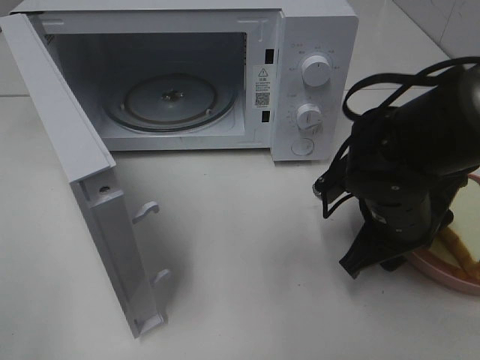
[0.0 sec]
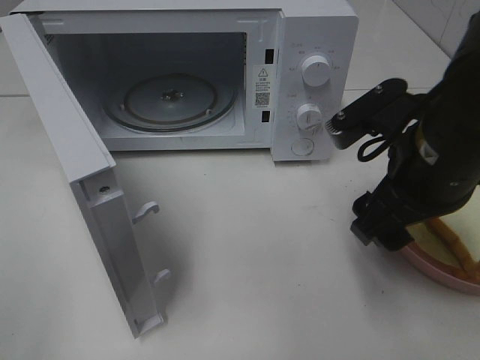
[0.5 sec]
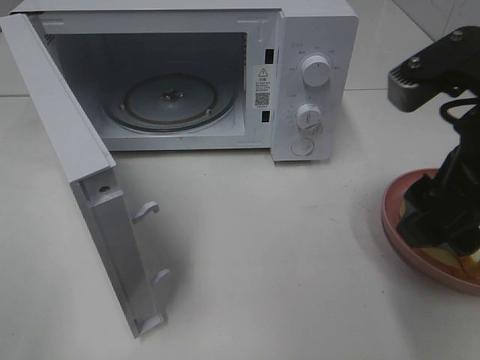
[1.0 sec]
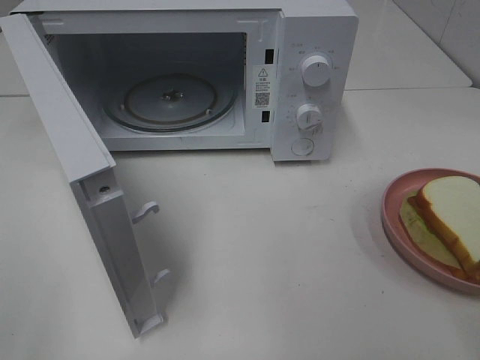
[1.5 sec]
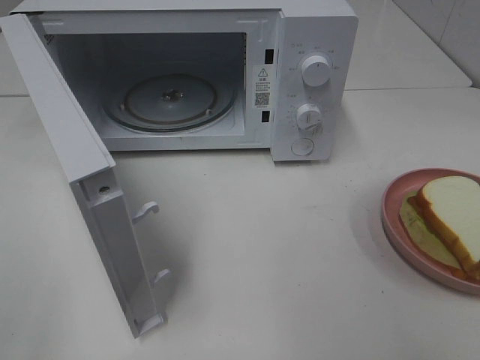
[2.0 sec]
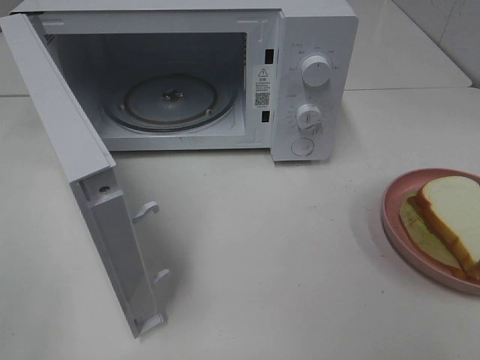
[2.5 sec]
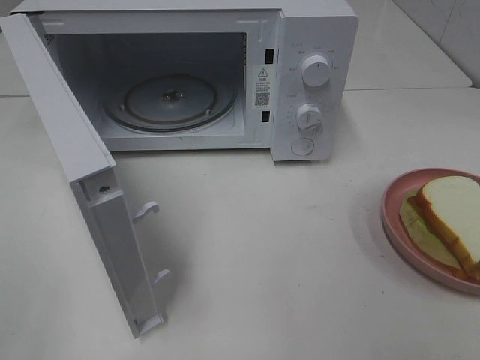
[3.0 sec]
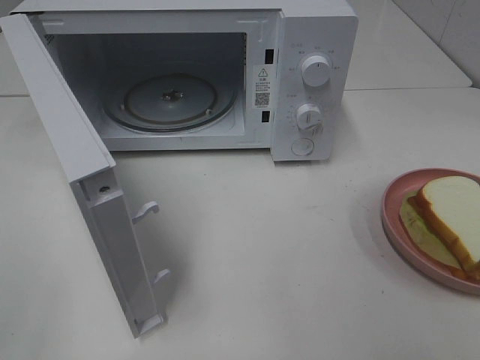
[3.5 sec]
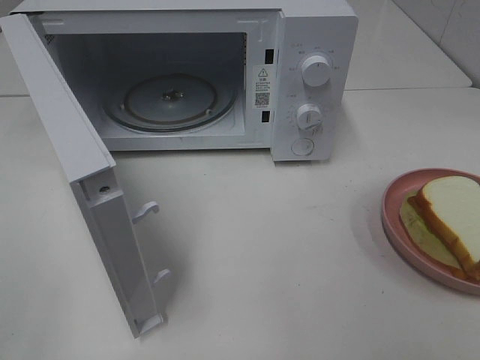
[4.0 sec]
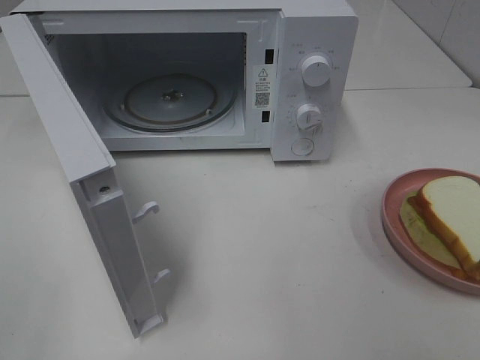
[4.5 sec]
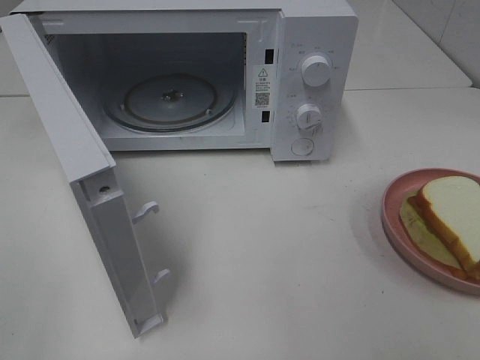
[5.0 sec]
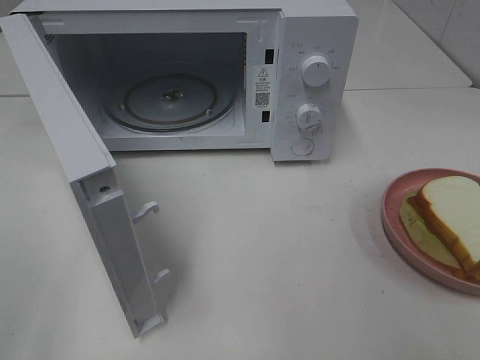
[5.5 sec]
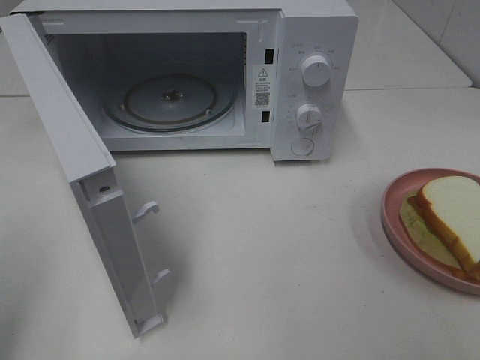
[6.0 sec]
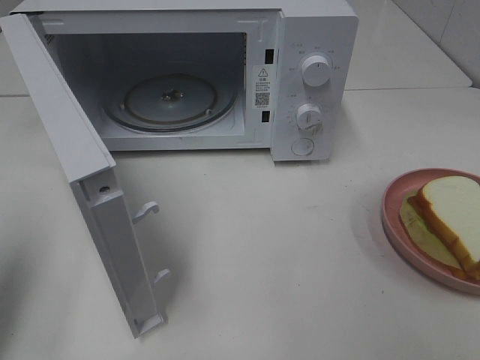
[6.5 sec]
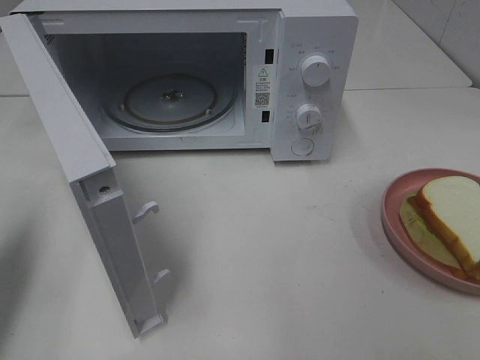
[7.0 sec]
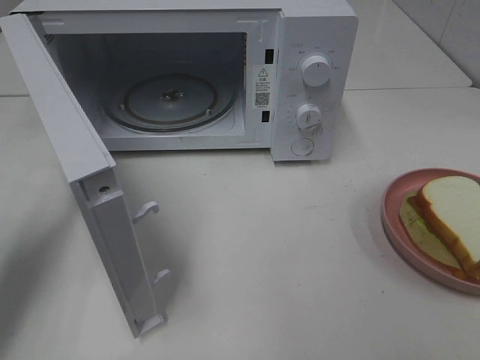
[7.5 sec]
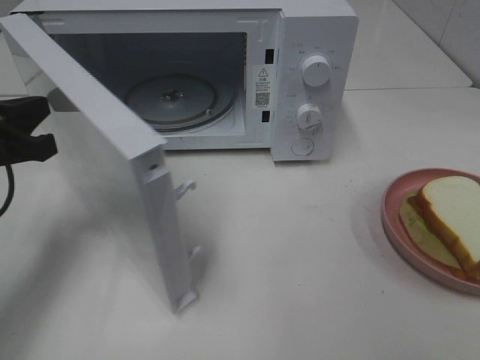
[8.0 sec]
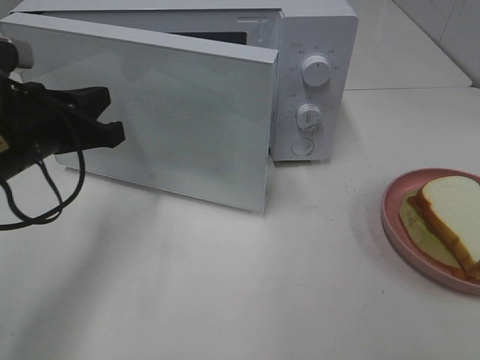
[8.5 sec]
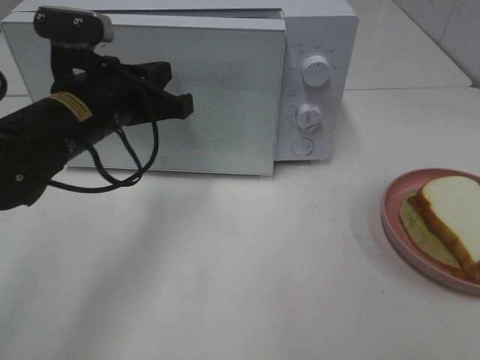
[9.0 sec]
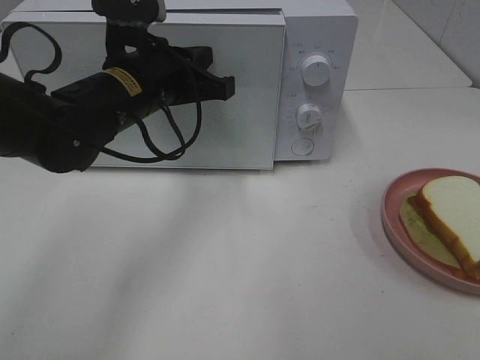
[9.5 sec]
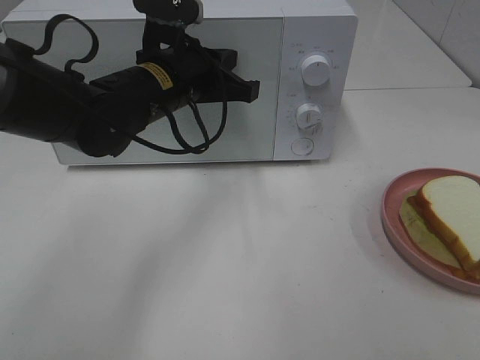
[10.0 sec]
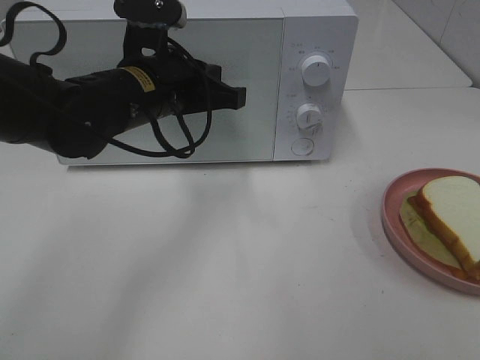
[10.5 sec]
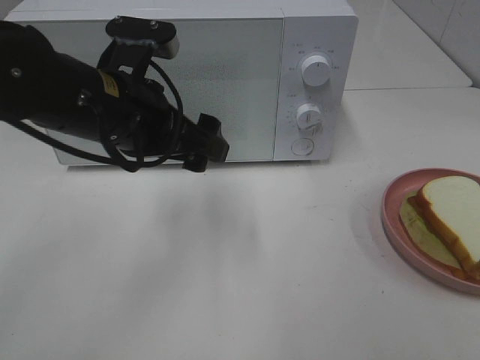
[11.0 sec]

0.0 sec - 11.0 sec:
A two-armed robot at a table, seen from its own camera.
Task of the whole recording: Heat Sandwich.
Step, 1.5 sec - 10.5 sec: Left hand: close the microwave door.
0.0 sec - 2.0 sec: The right gripper moves backward, upward and to the right, approximately 30 cm.
5.5 sec - 7.5 sec: The left gripper heads forward and downward, covering roughly 25 cm, and closes its fingers.
7.5 sec - 9.0 sec: The left gripper heads to the right and forward, covering some 20 cm.
9.0 sec - 11.0 sec: The left gripper opens up.

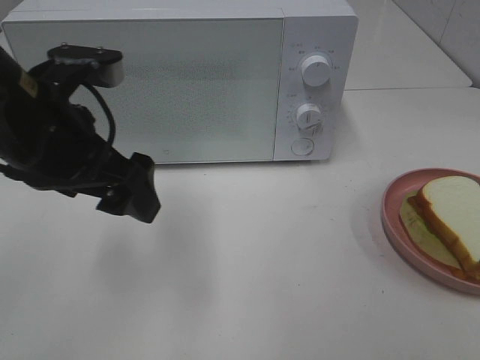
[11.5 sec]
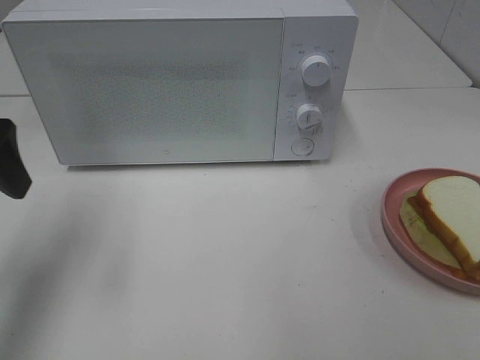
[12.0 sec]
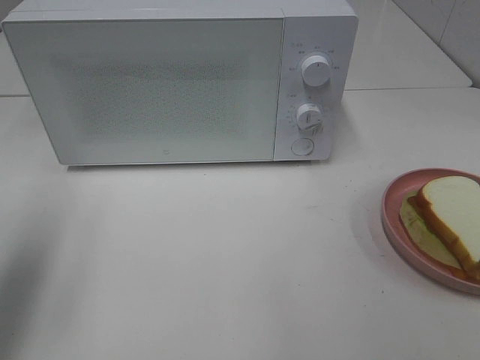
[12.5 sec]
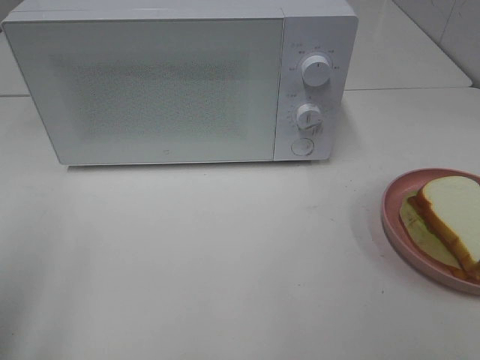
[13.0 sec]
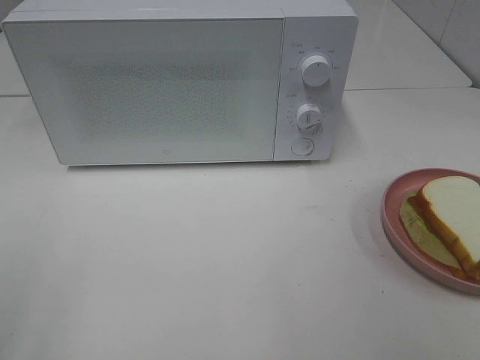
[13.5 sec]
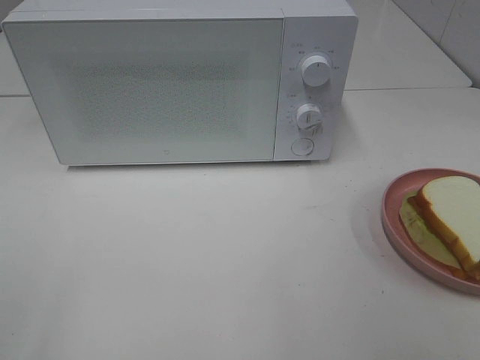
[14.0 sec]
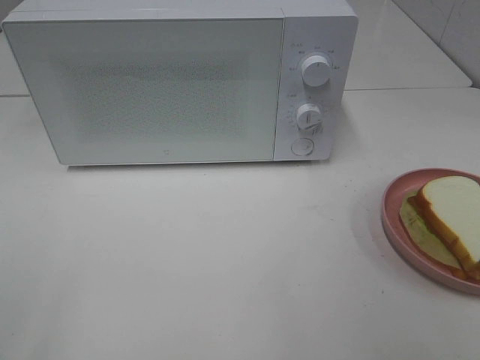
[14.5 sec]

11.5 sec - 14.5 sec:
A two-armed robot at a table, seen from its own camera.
Task of the whole recording: Heat Sandwich.
11.5 sec - 13.0 sec: The left gripper is displaced to the left and backward by about 20 cm.

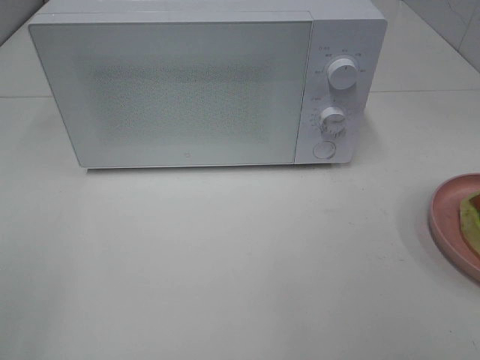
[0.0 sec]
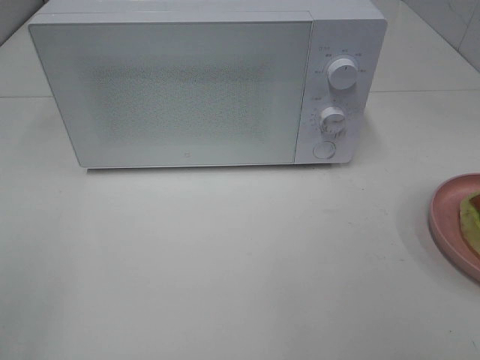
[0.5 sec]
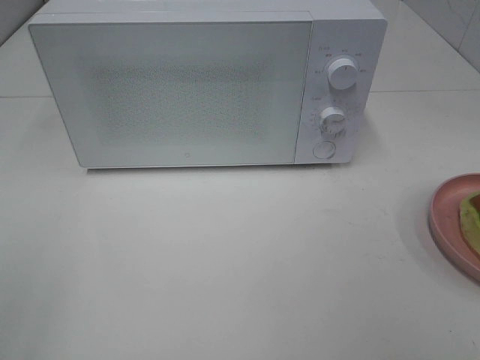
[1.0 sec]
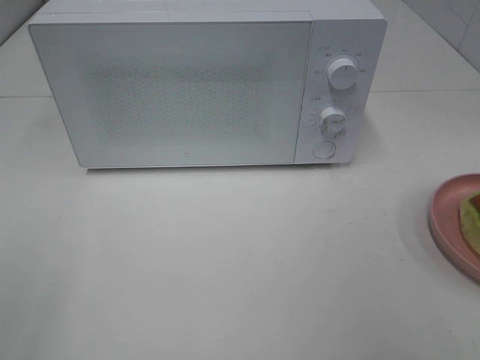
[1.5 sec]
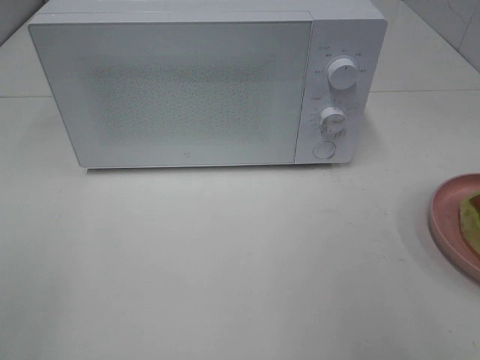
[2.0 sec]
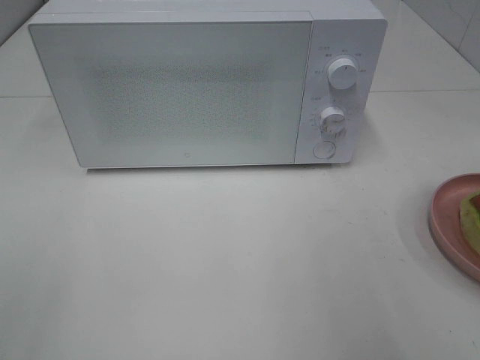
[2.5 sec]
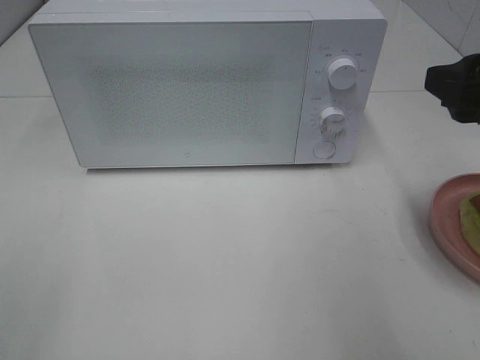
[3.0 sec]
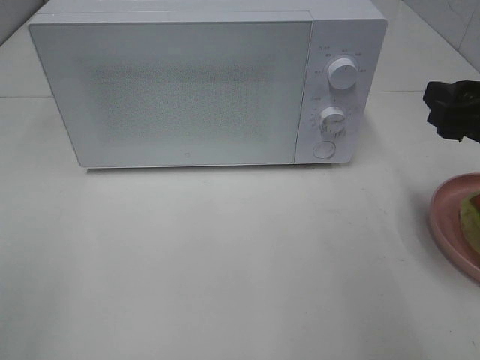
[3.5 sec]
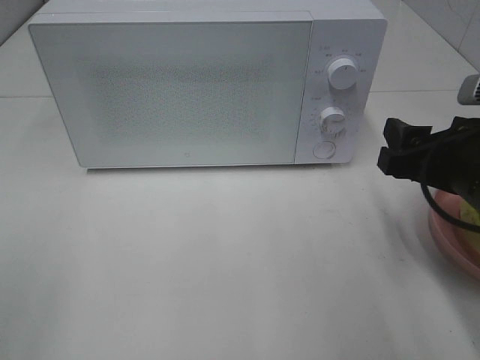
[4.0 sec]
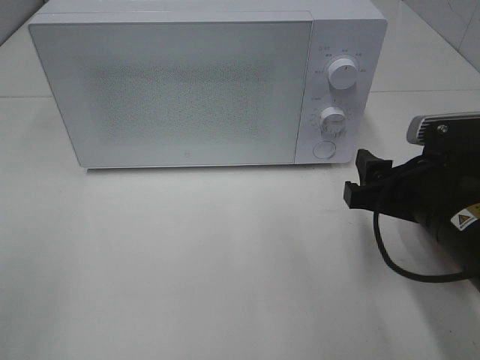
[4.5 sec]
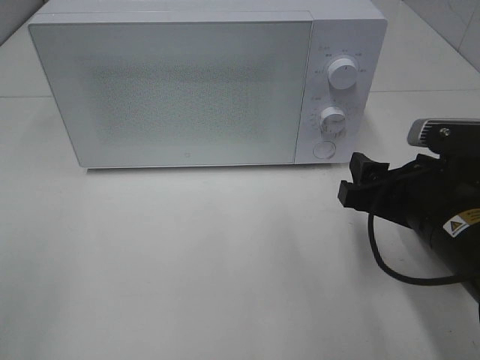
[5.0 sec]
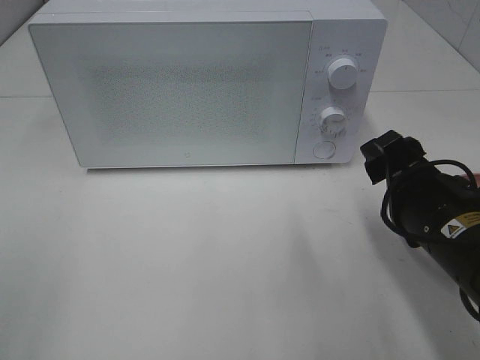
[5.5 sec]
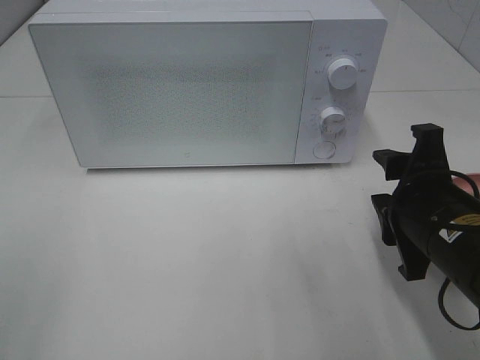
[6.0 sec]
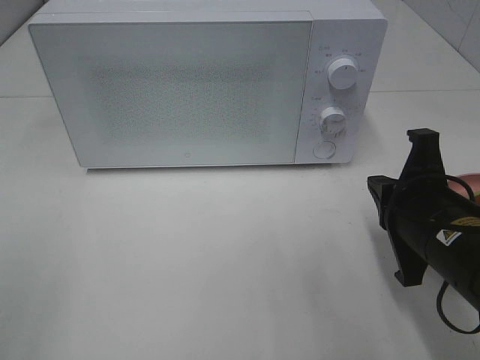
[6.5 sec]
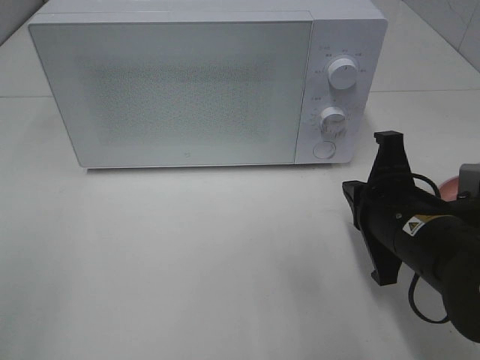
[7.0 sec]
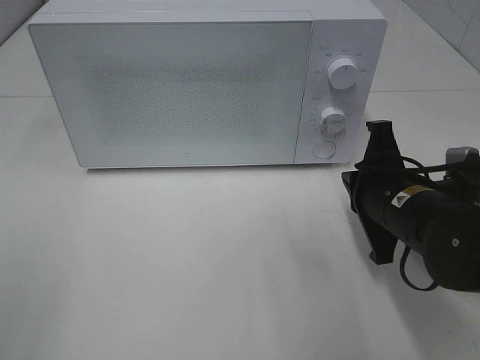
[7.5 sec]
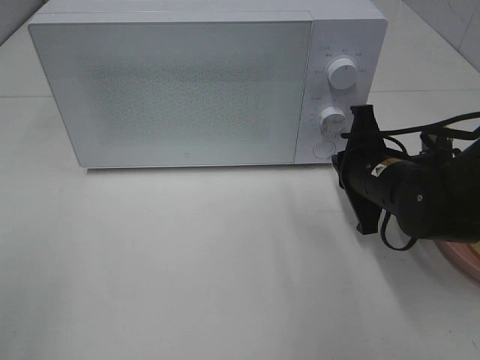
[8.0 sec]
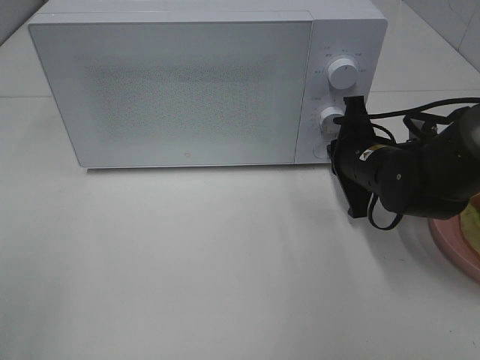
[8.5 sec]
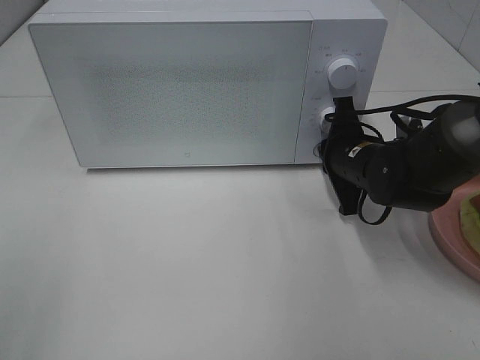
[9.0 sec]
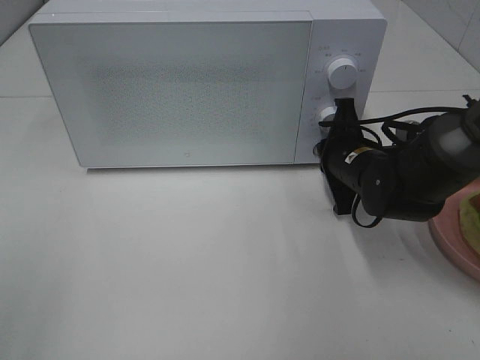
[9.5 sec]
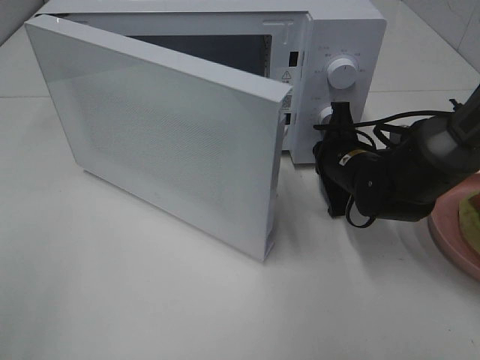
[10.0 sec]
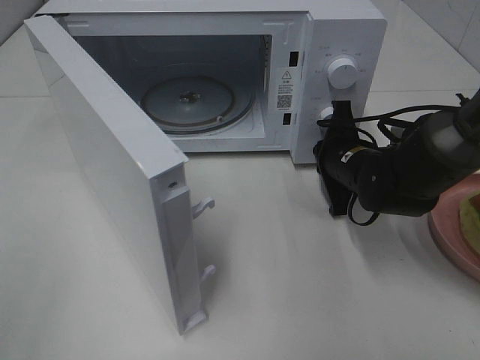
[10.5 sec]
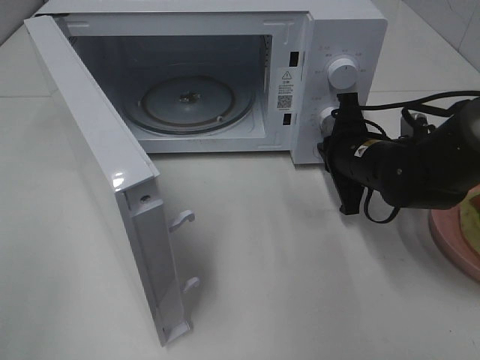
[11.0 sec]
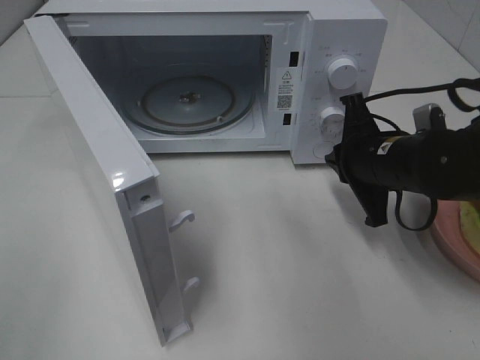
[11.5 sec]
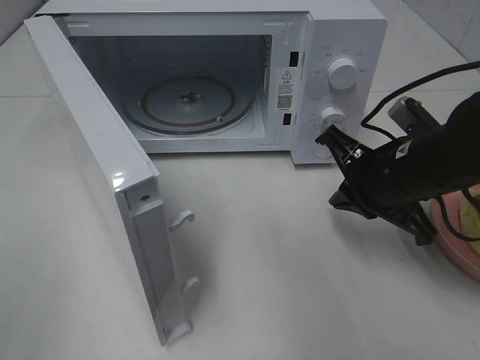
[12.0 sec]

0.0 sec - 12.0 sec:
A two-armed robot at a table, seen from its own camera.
Task of the whole recording: Heat Sandwich.
Step, 0.0 sec - 11.0 sec: Right hand: press the switch.
2.0 sec - 4.0 sec: The right gripper heads downward, forward and to the left, covering roughly 15 cm.
4.0 sec - 6.0 sec: The right gripper changes place by some 5 cm.
6.0 sec - 8.0 sec: The right gripper goes about 10 cm forward, and closes its fingers.
8.0 sec - 10.0 sec: The right gripper shifts approximately 5 cm forward.
10.0 sec - 12.0 sec: The right gripper shifts roughly 10 cm backward and upward.
